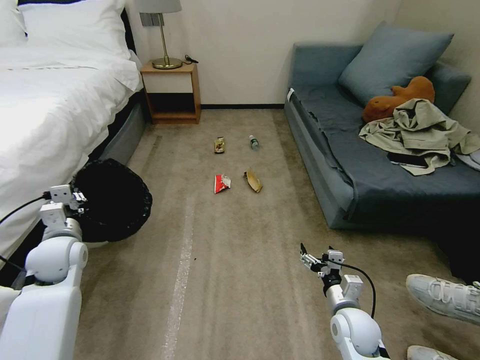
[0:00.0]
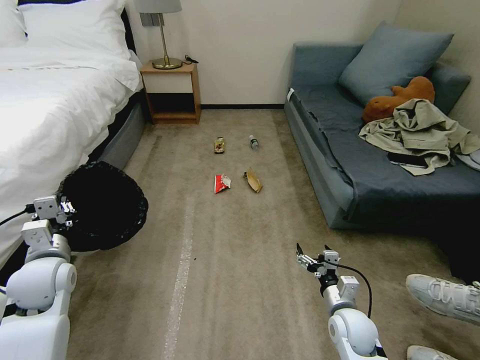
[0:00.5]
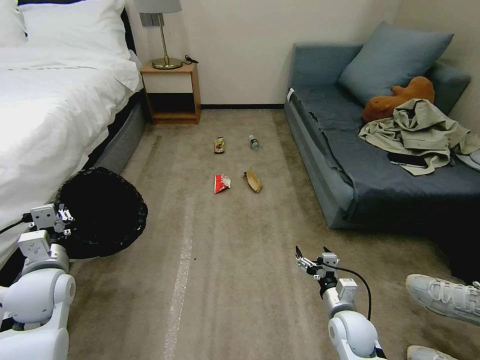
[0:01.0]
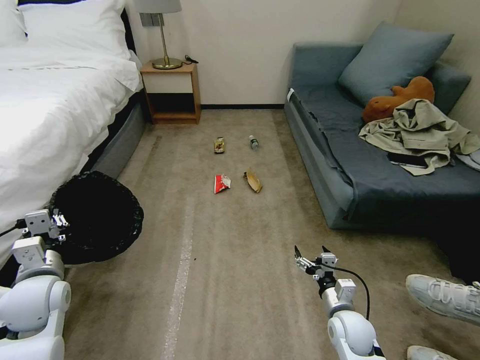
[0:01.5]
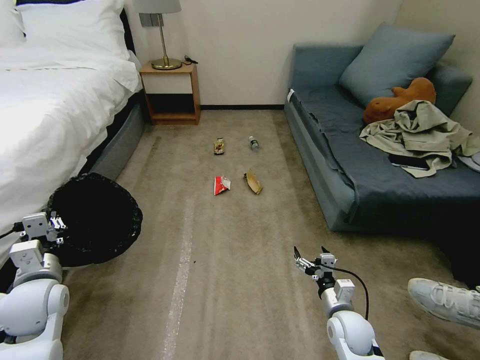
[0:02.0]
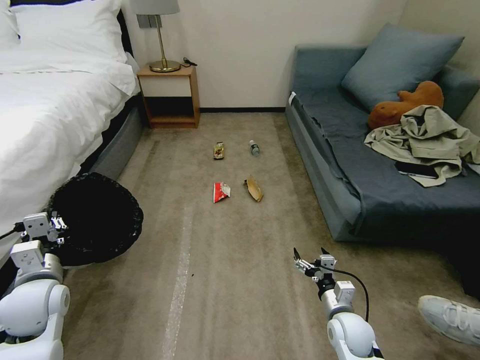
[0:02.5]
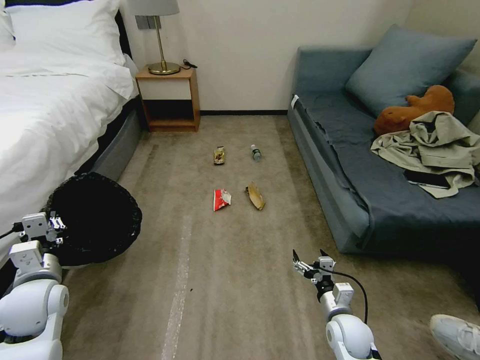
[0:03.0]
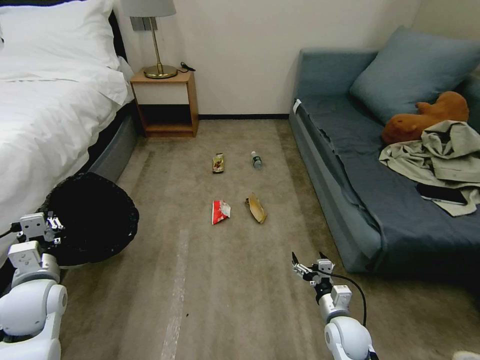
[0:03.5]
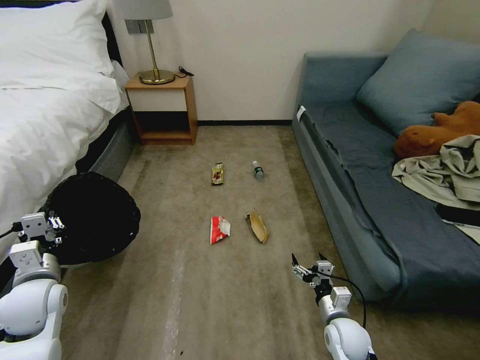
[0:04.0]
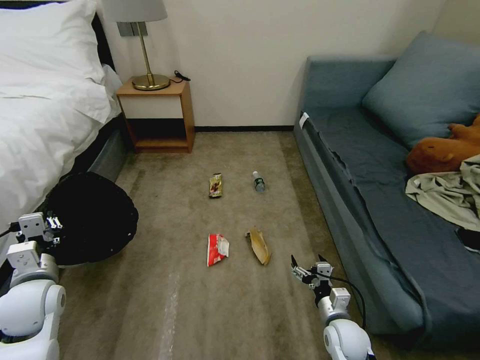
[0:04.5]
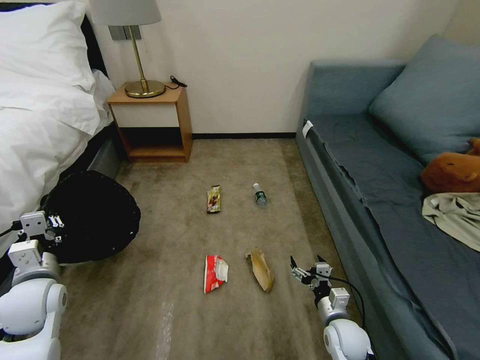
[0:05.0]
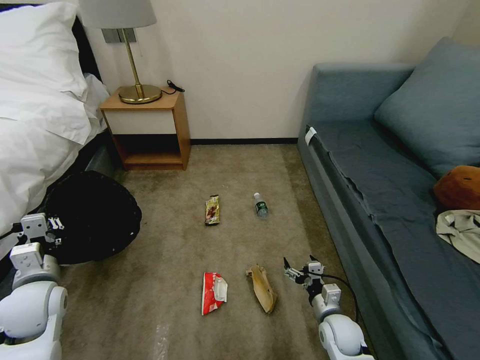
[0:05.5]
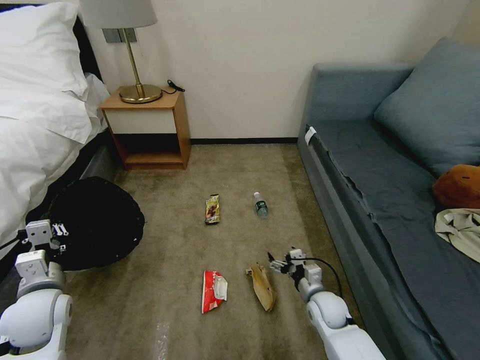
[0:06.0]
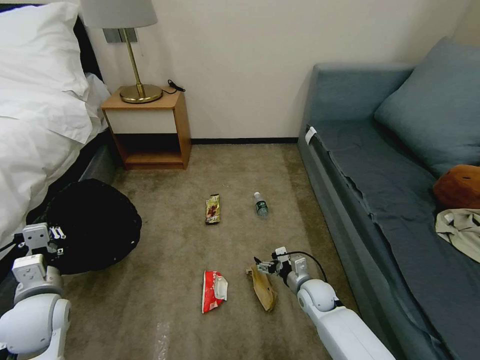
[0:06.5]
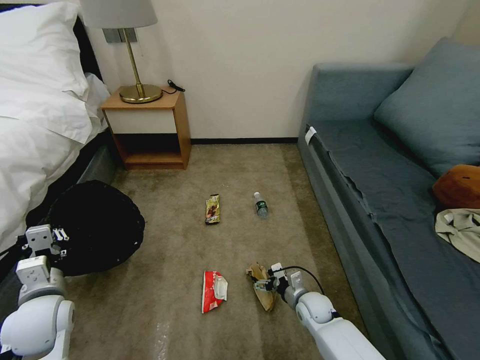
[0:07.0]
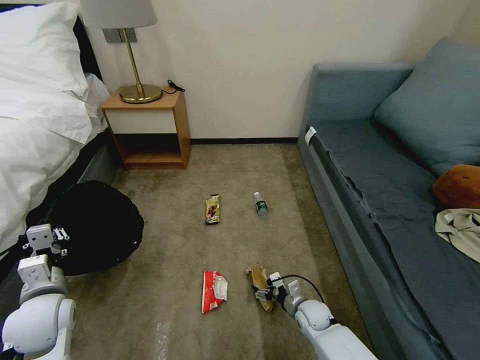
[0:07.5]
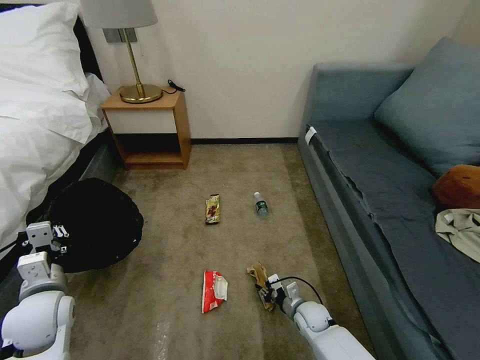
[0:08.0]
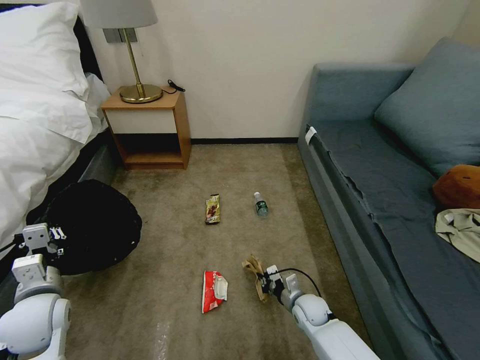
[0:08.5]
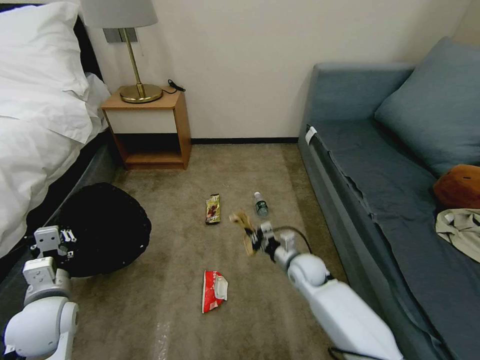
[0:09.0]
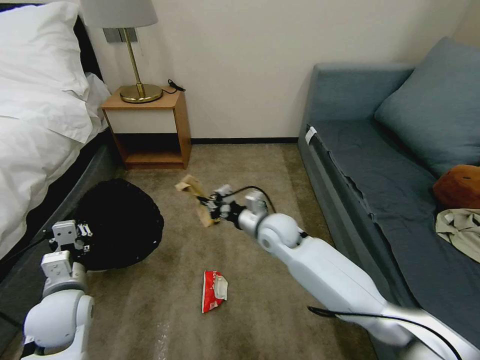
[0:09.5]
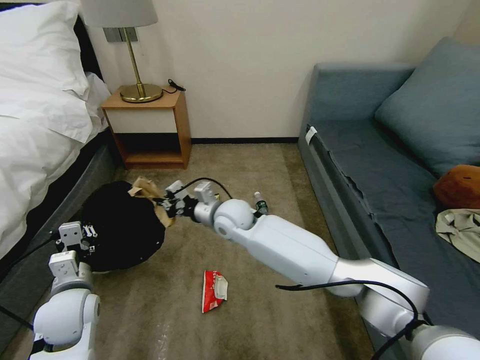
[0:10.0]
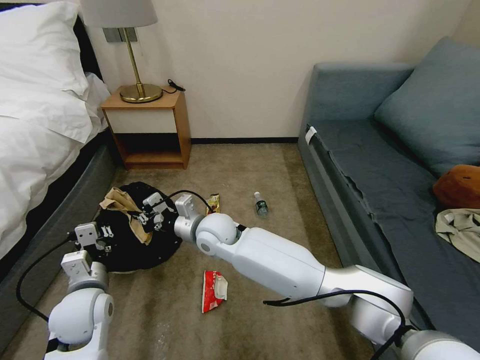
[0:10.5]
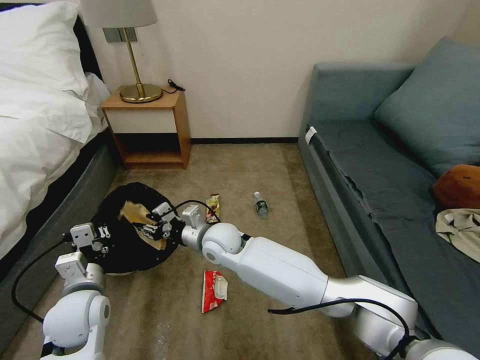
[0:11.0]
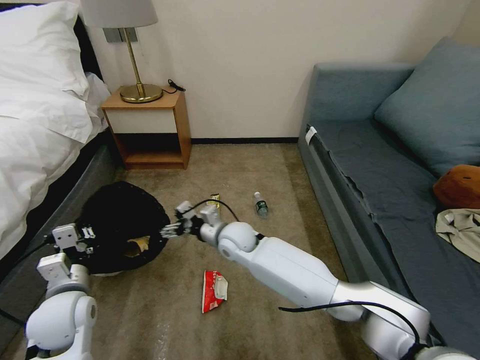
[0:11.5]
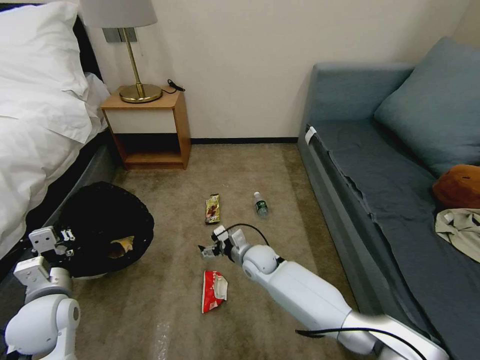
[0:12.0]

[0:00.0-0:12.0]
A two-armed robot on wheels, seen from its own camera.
Task of the whole recording: Pick up the trash bin, then pick up the garbage on the floor and place it into the trash bin.
0:00.0 to 0:02.0: The left gripper is displaced backward by roughly 10 cm.
0:04.0 to 0:06.0: The right gripper travels forward by about 5 cm.
0:06.0 to 0:08.0: The right gripper heads downward, covering approximately 10 cm, and closes.
0:08.0 to 0:10.0: The right gripper shifts about 40 cm upward, to the left and forward.
0:10.0 to 0:12.0: The right gripper moves downward and to the right, roughly 20 cm, and opens up.

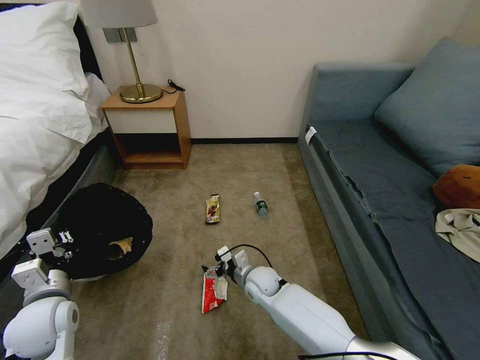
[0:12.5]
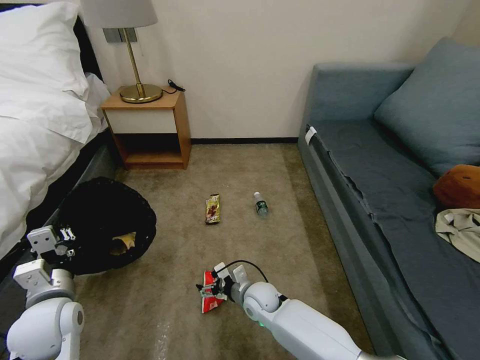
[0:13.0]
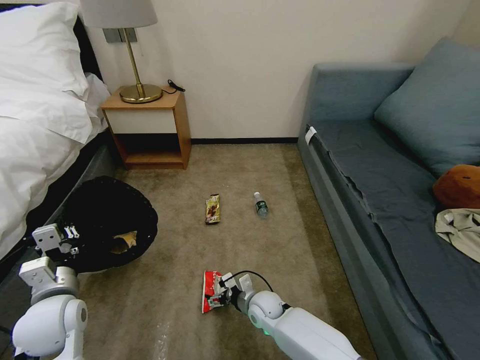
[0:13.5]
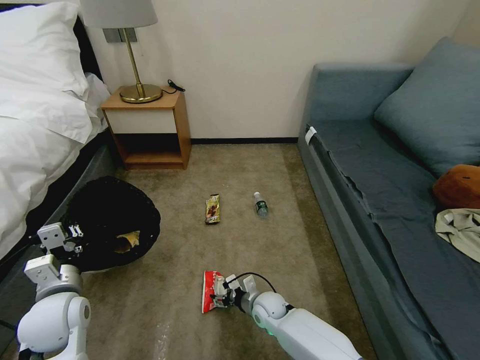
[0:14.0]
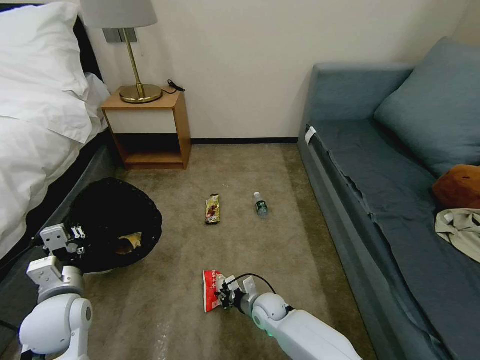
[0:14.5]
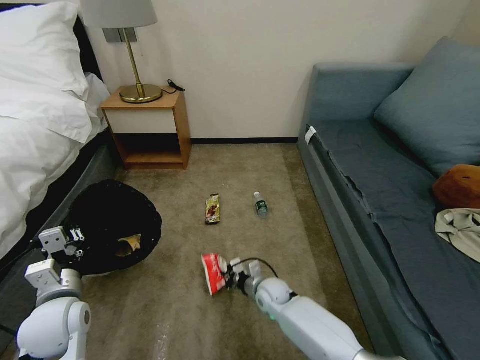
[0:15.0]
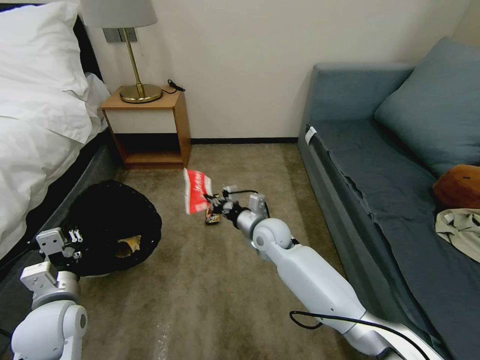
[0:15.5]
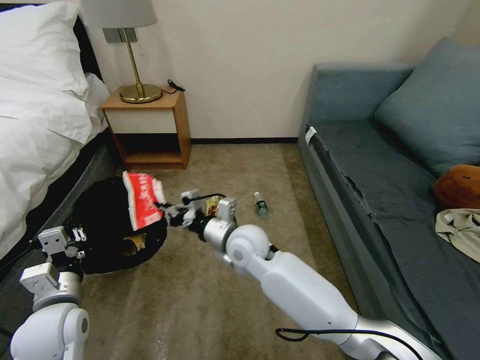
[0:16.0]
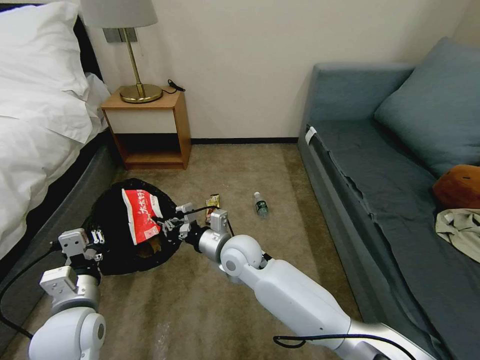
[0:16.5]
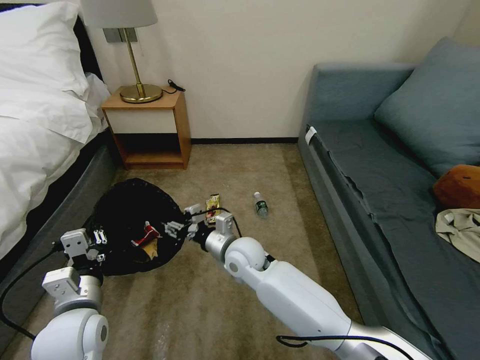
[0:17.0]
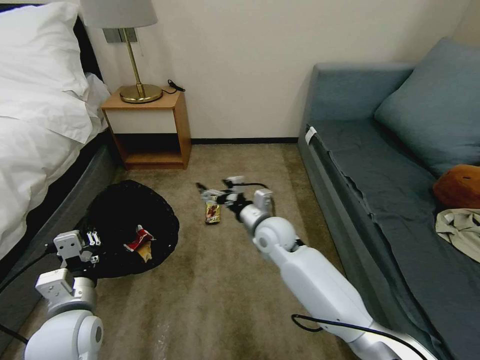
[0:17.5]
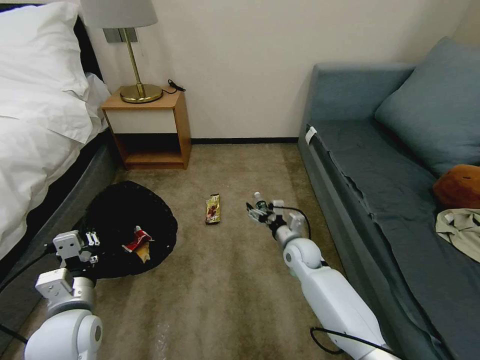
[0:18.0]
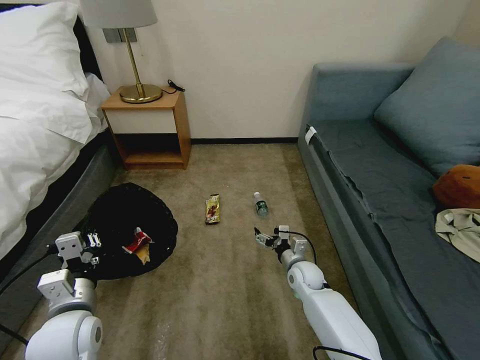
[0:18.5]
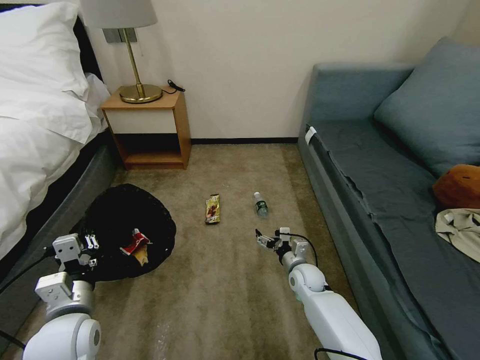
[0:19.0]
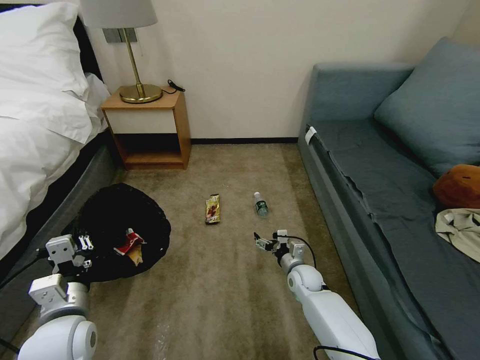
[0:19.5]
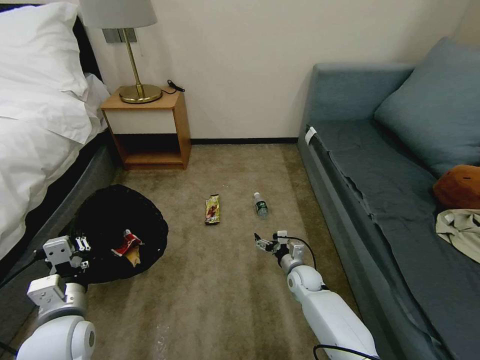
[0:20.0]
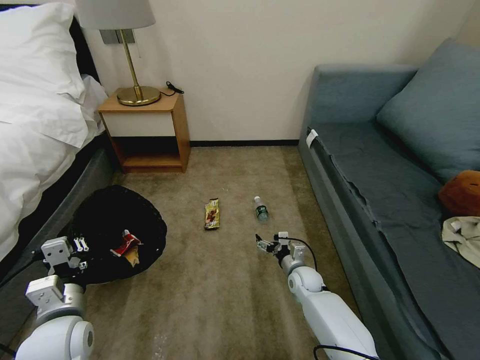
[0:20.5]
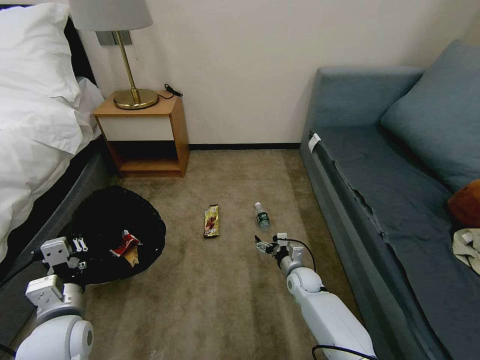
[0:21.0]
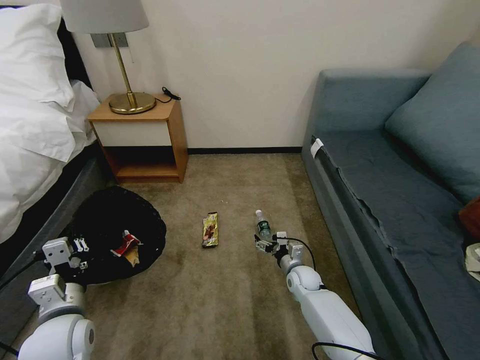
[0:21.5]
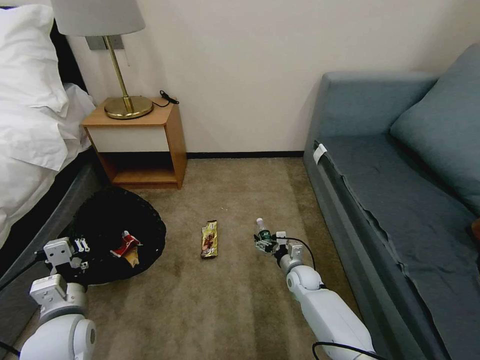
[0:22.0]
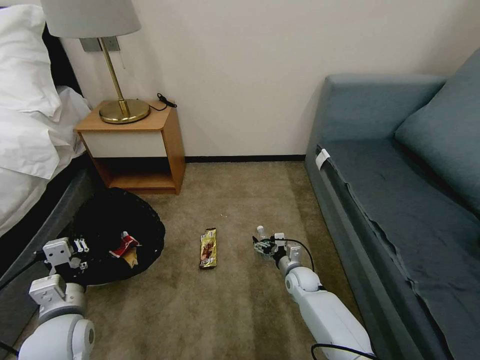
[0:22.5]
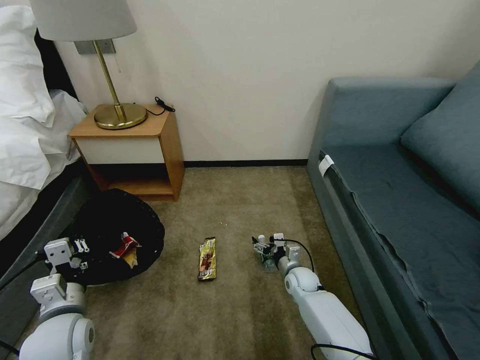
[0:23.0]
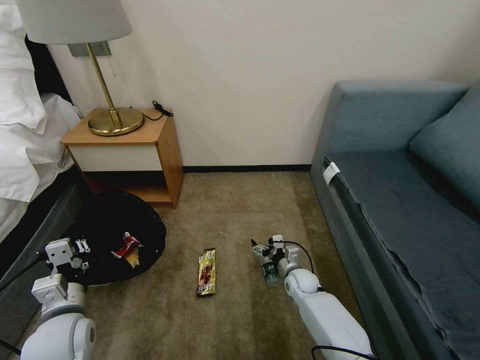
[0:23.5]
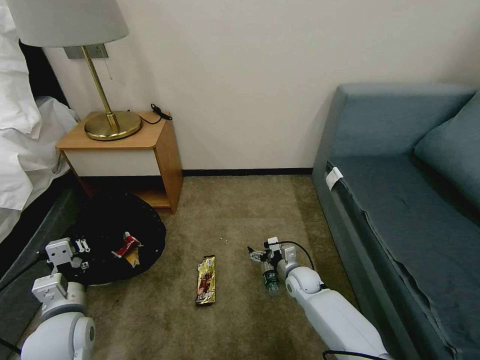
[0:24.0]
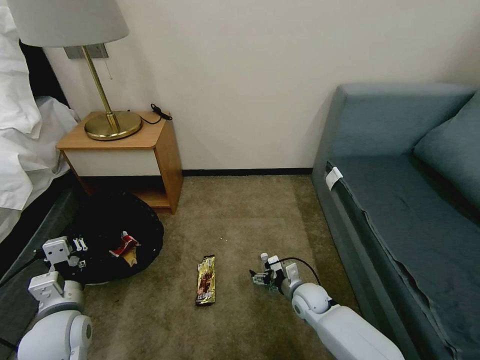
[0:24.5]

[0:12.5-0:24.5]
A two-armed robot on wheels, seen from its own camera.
Task of the whole recording: Pick up the trash bin, then pick up the garbage on the floor and place it into the trash bin.
0:12.5 to 0:14.5: The right gripper is displaced downward by approximately 5 cm, and closes up.
0:14.5 to 0:16.5: The left gripper moves approximately 5 cm, while the right gripper shifts approximately 25 cm upward.
0:16.5 to 0:18.5: The right gripper shifts some 25 cm to the right and downward, and opens its fingers.
0:18.5 to 0:20.5: The grippers make only small movements.
0:22.5 to 0:24.5: The right gripper moves backward, roughly 5 cm.

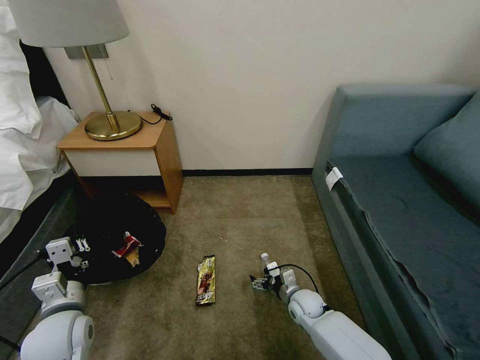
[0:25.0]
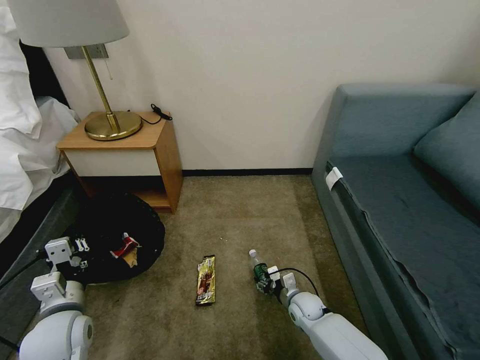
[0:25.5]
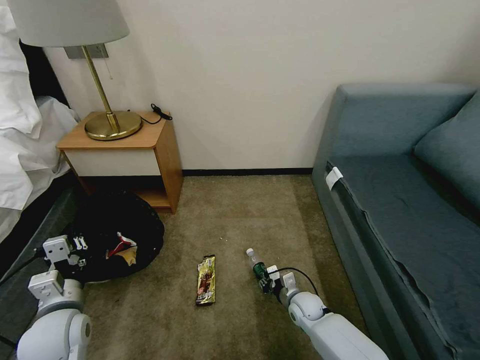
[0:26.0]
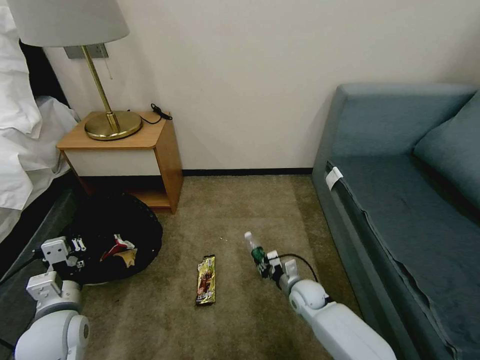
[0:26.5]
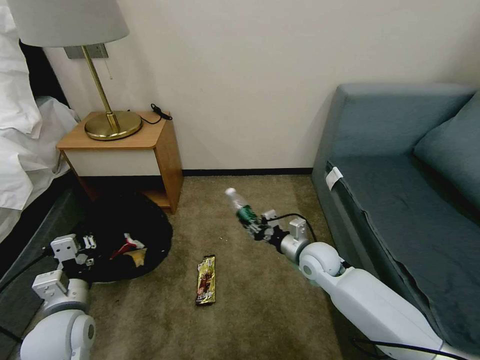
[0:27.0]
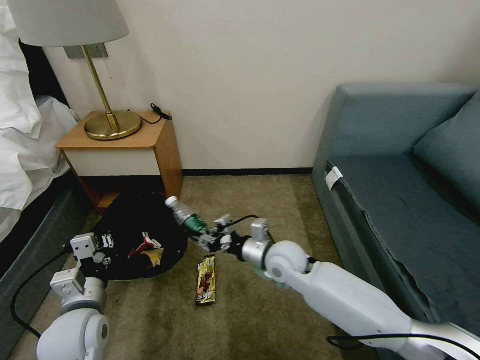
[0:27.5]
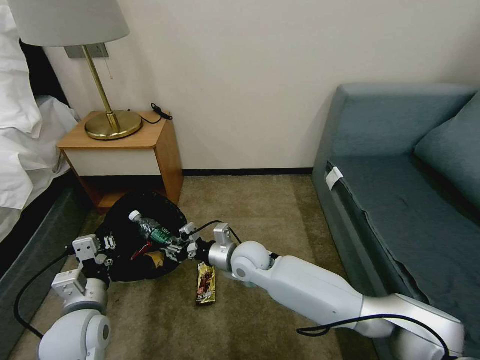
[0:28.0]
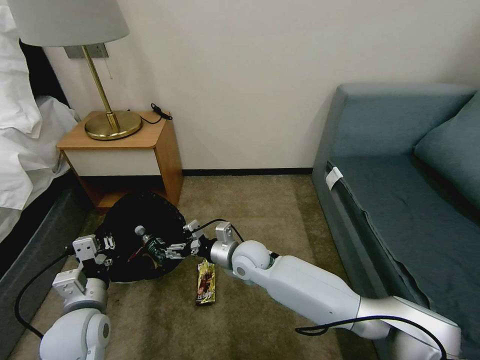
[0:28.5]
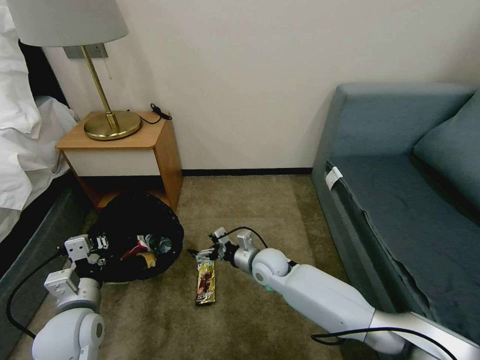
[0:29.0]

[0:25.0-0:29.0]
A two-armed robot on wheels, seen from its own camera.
Task of the whole recording: Pick up the trash bin, then pick up the garbage on the floor and place it into the trash bin.
0:25.0 to 0:27.0: The right gripper shifts some 20 cm upward, and closes up.
0:27.0 to 0:29.0: The right gripper shifts roughly 15 cm to the left and downward, and opens up.
